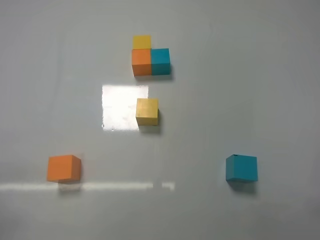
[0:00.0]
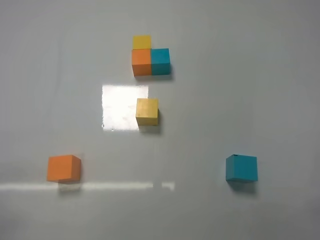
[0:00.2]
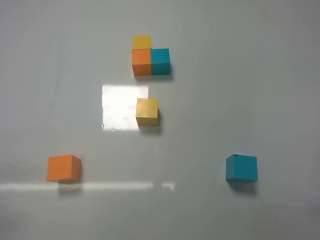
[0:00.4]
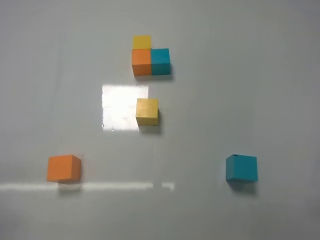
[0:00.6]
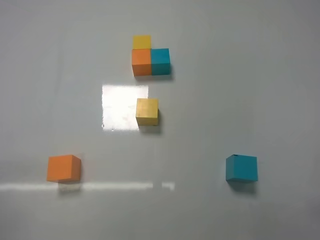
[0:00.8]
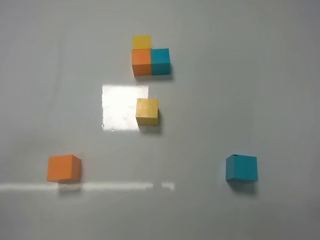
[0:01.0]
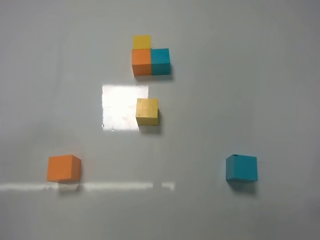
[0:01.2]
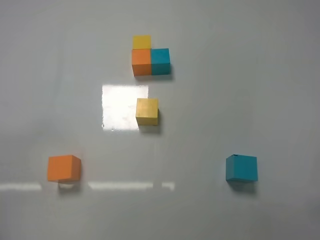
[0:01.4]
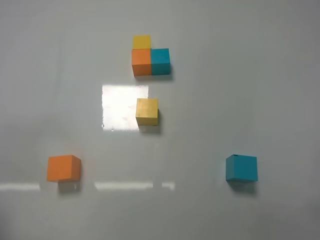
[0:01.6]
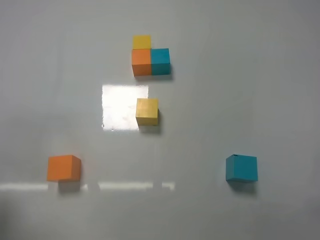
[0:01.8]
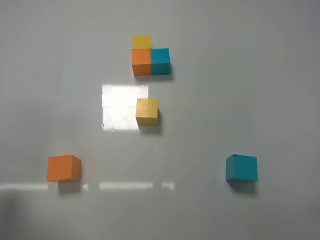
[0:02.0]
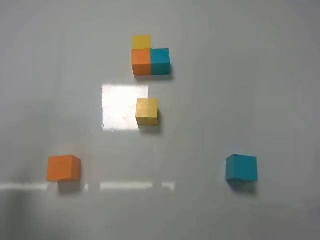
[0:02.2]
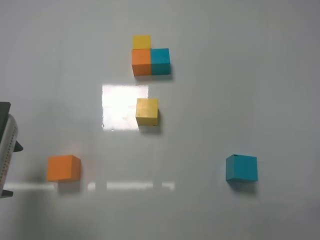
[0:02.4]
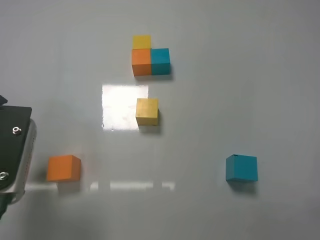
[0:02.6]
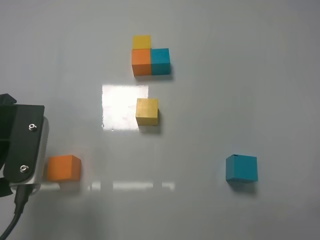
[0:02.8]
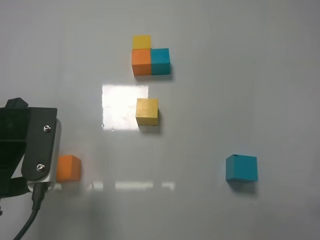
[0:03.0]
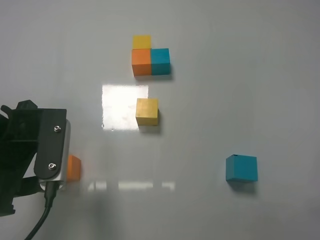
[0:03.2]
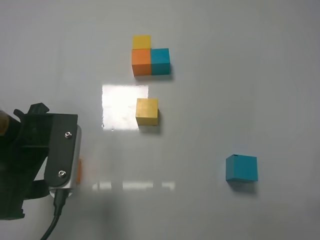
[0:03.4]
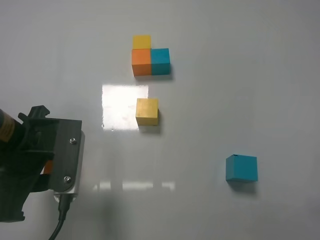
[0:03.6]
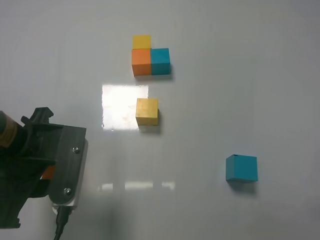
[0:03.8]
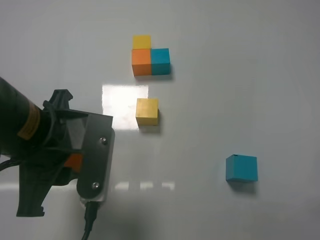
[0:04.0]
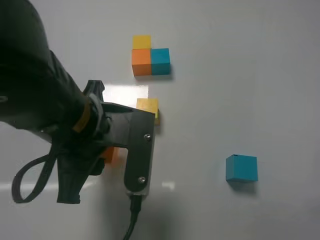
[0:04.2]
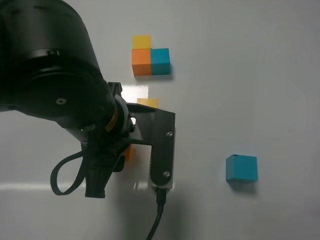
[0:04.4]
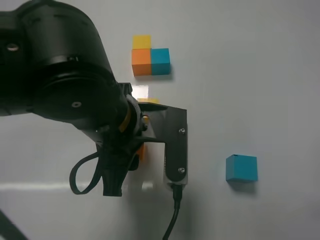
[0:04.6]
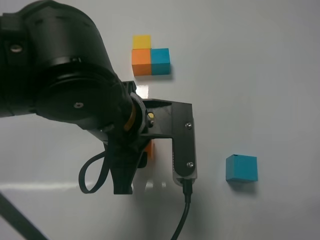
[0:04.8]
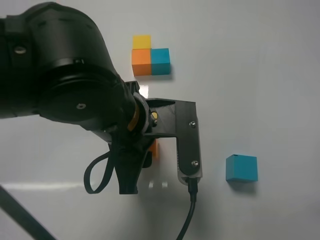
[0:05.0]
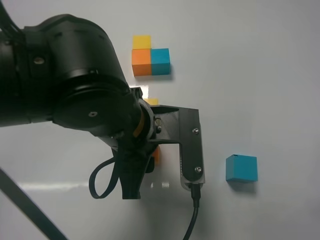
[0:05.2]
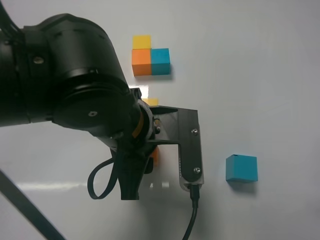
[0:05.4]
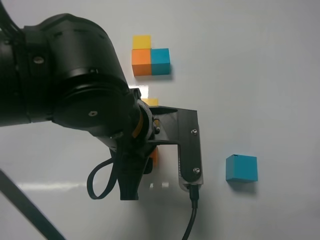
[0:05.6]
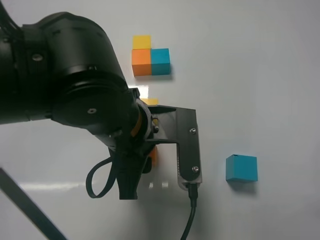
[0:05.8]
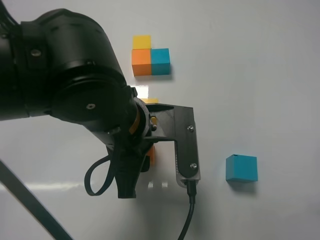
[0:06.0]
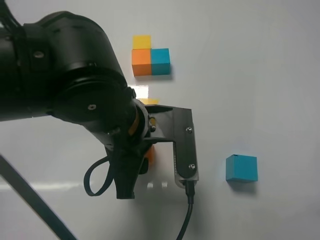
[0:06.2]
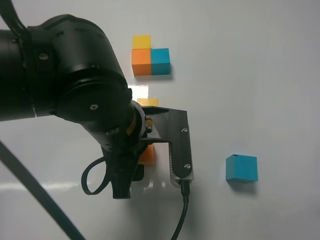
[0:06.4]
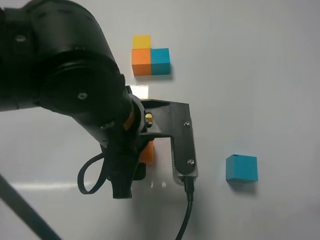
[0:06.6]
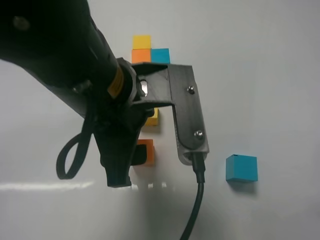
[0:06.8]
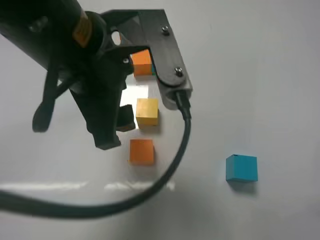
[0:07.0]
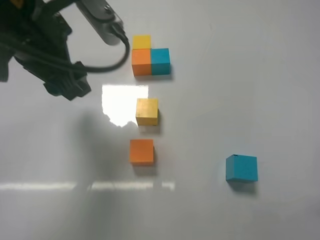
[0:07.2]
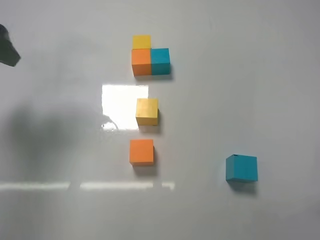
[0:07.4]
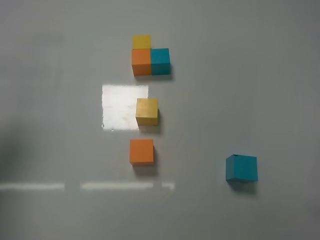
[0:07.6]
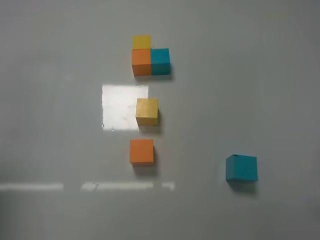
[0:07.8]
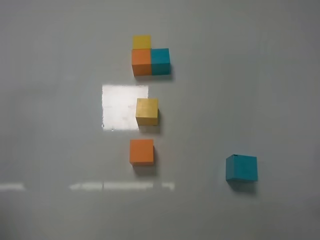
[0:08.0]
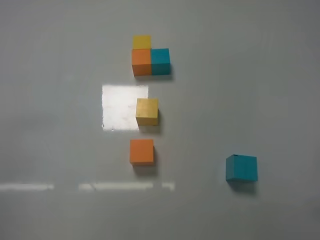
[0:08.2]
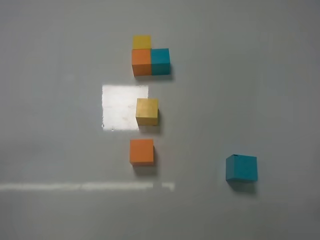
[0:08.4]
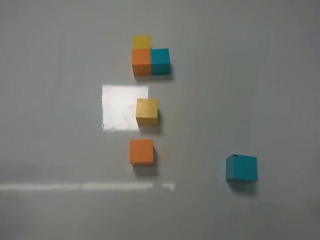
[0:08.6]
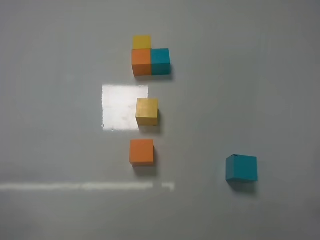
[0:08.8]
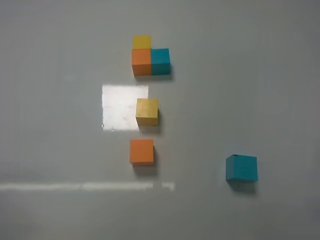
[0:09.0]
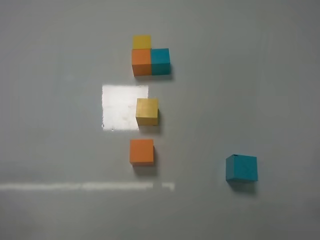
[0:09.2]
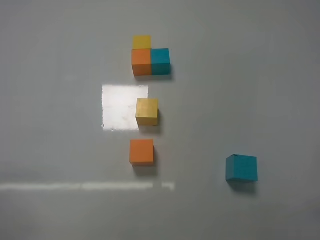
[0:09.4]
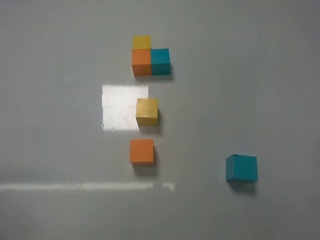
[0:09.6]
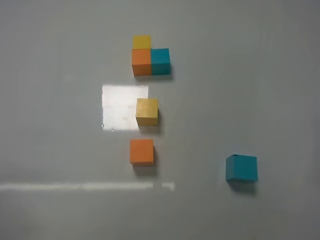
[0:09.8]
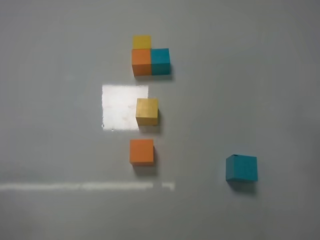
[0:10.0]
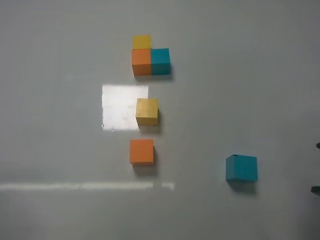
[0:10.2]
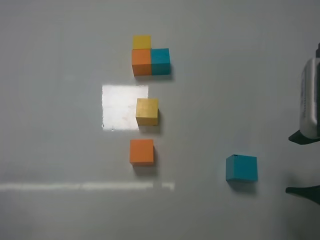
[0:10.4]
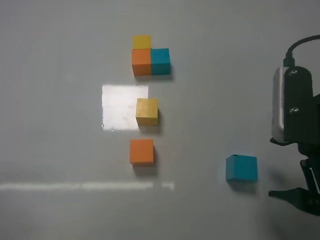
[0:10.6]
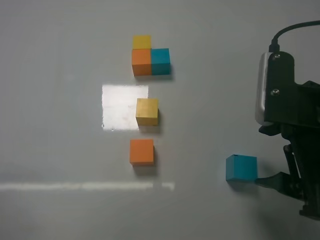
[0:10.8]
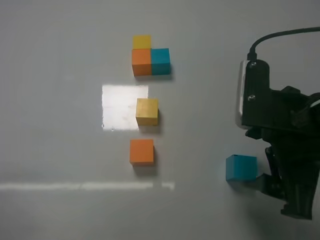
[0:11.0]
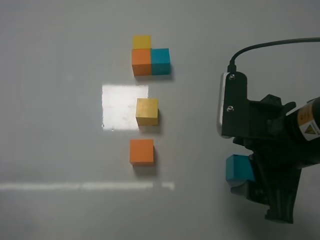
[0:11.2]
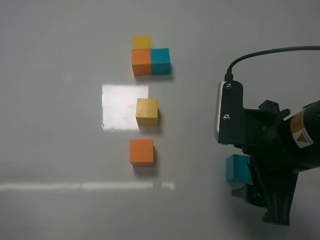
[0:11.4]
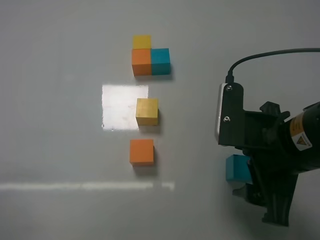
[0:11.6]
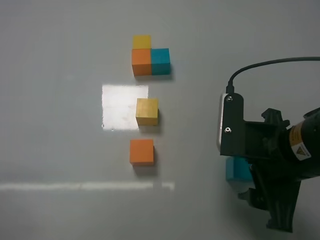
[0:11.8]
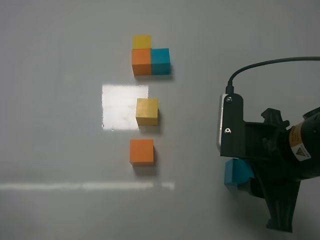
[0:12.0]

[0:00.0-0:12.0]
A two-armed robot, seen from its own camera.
Task of the whole recording: According to the building block template in front, assemble the scattered blocks together.
Step, 0:00.0 to 0:03.6: Grasp the orange block with left gripper.
Step, 0:03.8 to 0:06.6: Adjust the position of the cube with the left gripper.
0:01.6 to 0:03.0: The left gripper is displaced forward and to the right by approximately 15 cm, and opens.
0:03.0 to 0:04.4: The left gripper moves to the right, roughly 15 cm, and closes.
0:06.0 to 0:07.6: The left gripper is displaced to the left and upward by some 35 cm, and opens.
0:07.6 to 0:09.0: The left gripper goes some 30 cm downward and backward.
0:09.0 to 0:10.4: The right gripper heads forward, to the left and upward, covering some 15 cm, and opens up.
0:10.4 to 0:12.0: The right gripper shifts roughly 5 cm to the left, and closes.

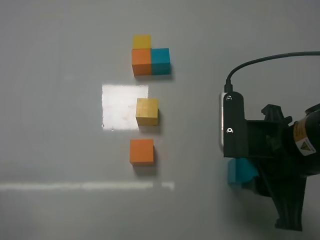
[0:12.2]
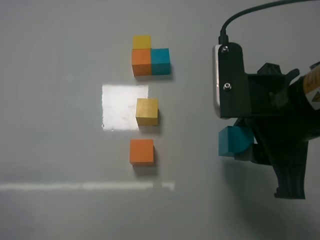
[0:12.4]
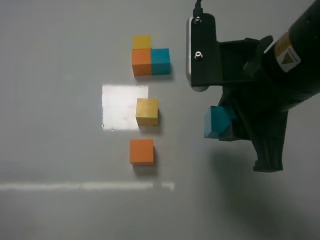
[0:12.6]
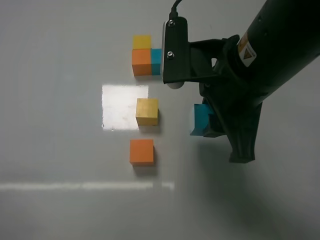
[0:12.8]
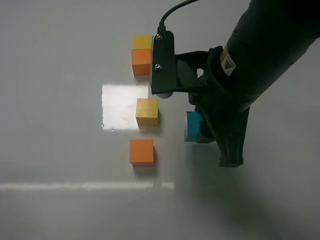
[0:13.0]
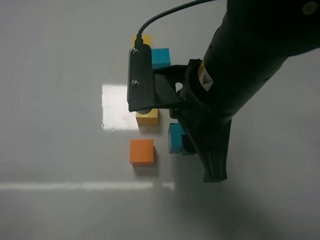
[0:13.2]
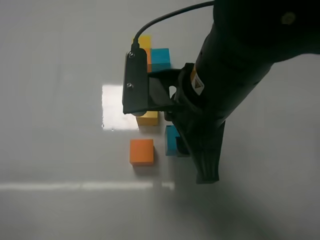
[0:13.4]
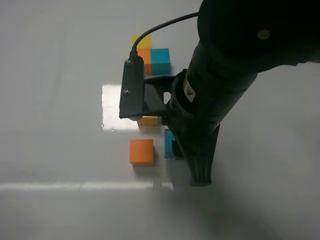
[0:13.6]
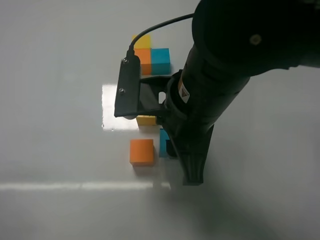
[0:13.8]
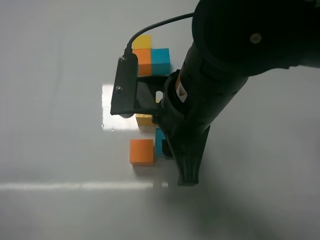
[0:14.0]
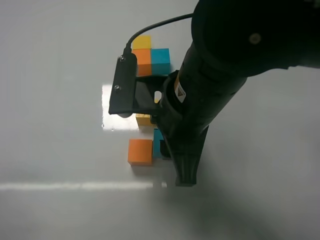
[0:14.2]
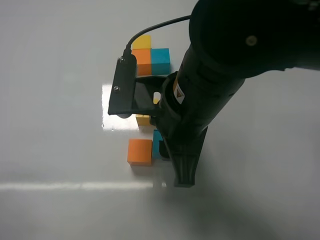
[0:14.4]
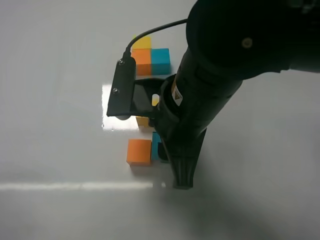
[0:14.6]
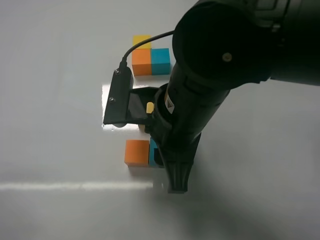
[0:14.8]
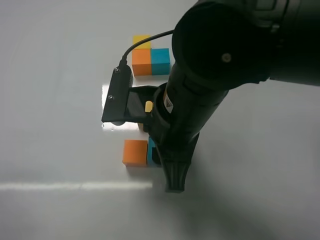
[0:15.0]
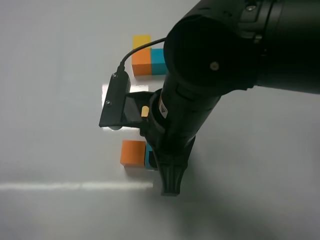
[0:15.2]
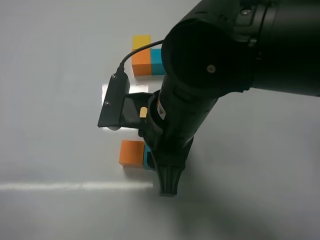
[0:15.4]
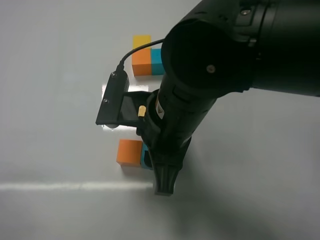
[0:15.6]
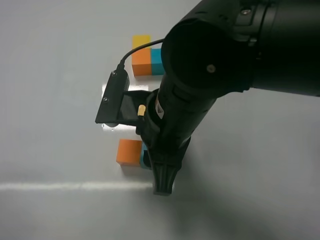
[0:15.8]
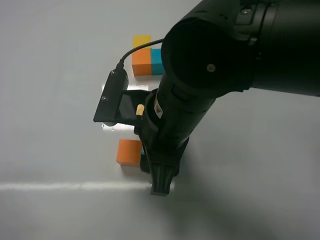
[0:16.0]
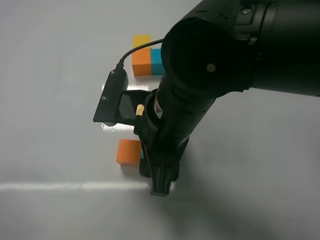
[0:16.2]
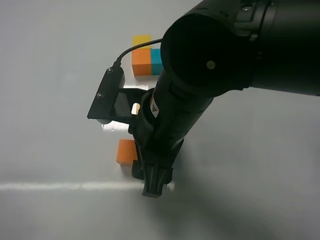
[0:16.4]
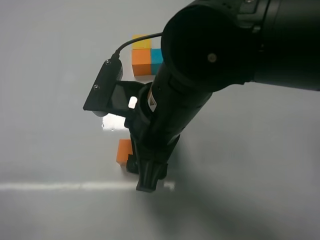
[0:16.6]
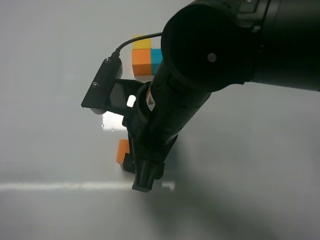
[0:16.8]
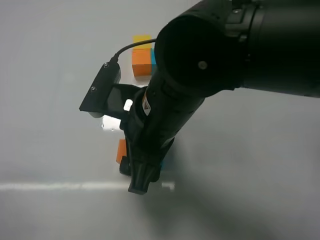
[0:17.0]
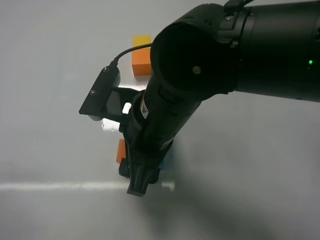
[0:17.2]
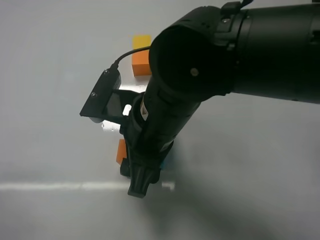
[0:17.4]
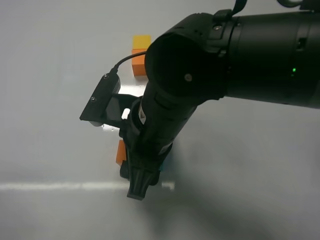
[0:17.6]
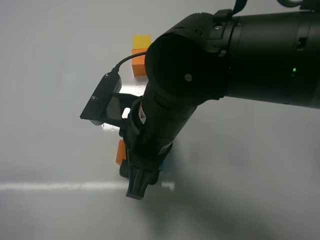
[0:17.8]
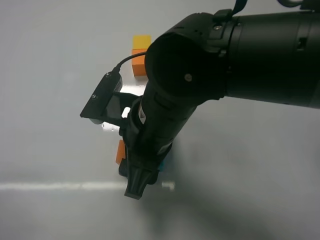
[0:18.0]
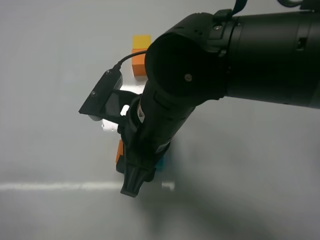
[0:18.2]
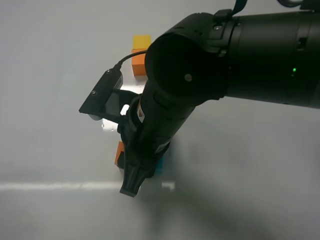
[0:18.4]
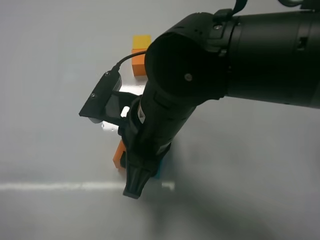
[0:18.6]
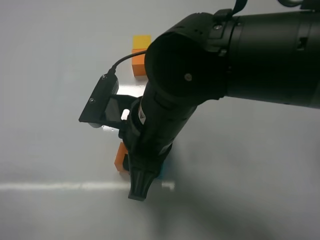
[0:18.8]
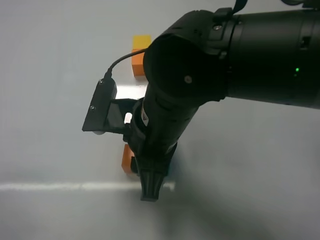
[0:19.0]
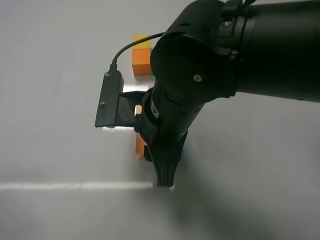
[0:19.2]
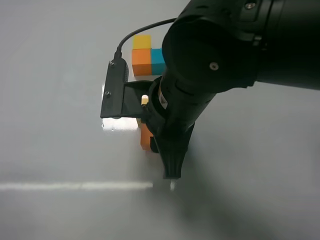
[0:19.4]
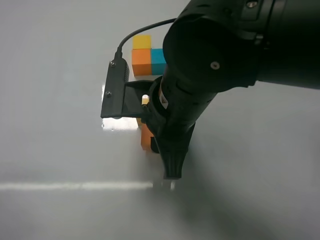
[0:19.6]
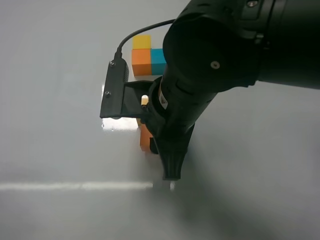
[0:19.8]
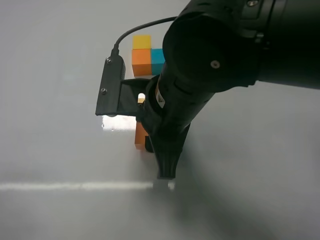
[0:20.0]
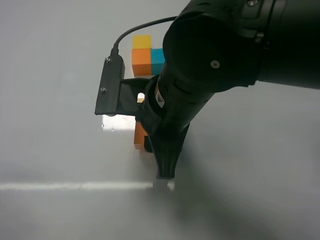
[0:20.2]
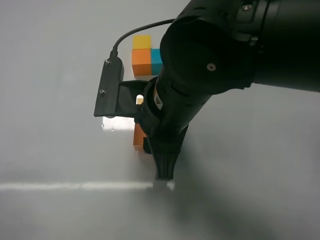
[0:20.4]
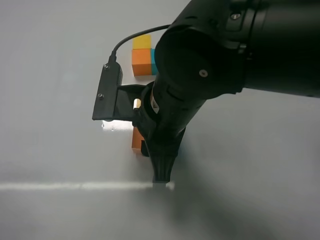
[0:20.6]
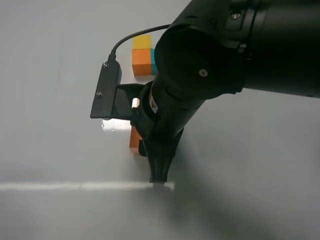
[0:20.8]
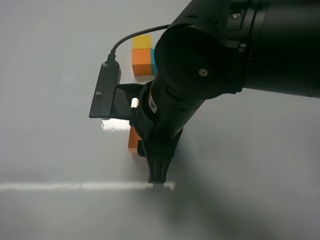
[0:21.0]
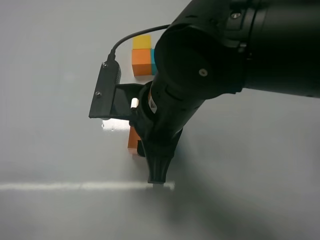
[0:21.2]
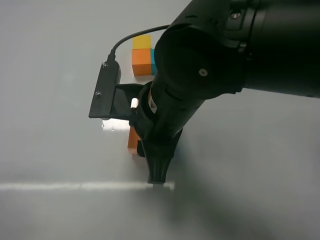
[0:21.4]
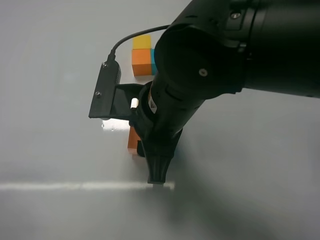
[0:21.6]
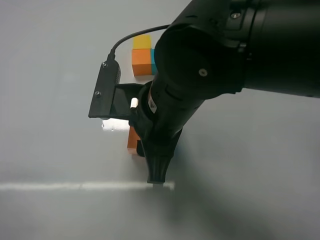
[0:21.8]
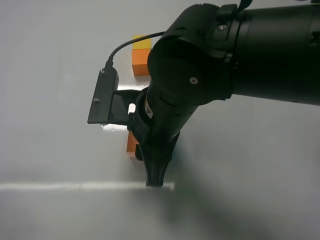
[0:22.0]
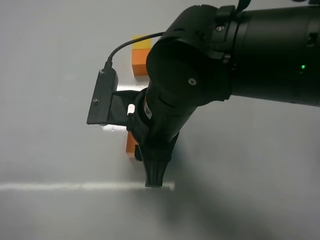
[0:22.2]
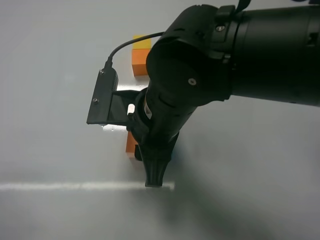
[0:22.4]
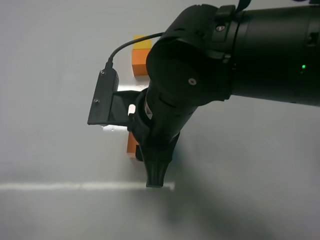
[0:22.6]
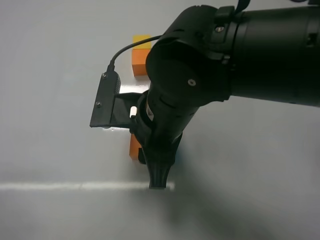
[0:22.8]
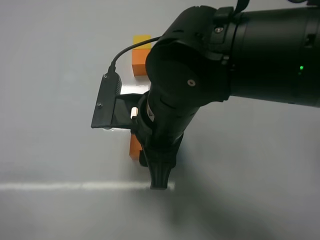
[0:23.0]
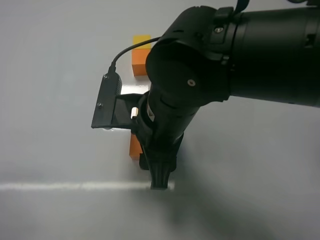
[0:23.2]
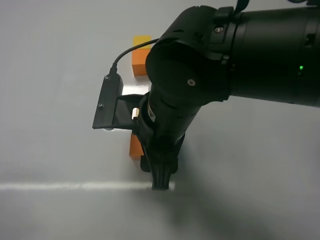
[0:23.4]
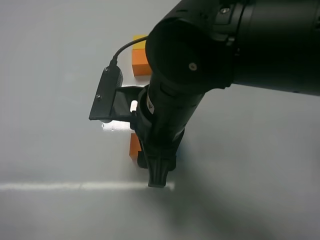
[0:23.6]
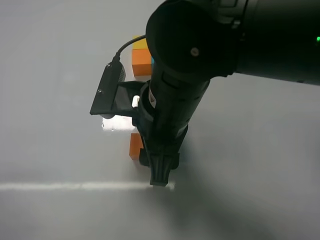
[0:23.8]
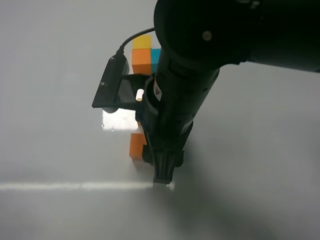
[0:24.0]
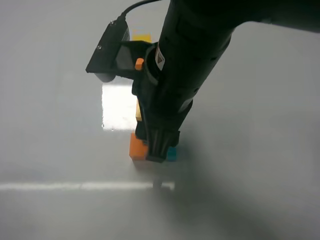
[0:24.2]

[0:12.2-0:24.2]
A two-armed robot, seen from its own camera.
Task of the whole recording: According to the building block template in front, assemble the scattered blocks together.
Step, 0:12.2 to 0:16.0: Put the blue cube on the right of the orange cube with the right gripper.
Step, 0:16.2 to 0:23.6: Put the blue cube and orange cube in the center of the table with the right gripper.
0:12.2 to 0:13.8: The right gripper shifts approximately 10 cm to the left.
0:13.8 to 0:15.2: The grippers make only small movements.
0:15.2 to 0:16.6: The right gripper opens its fingers.
0:16.6 to 0:18.2: The grippers make only small movements.
0:19.8 to 0:21.2: The two grippers keep their place.
0:21.2 to 0:22.6: Neither gripper changes place.
0:22.6 to 0:24.2: The right gripper goes some 5 cm upward, and opens up.
